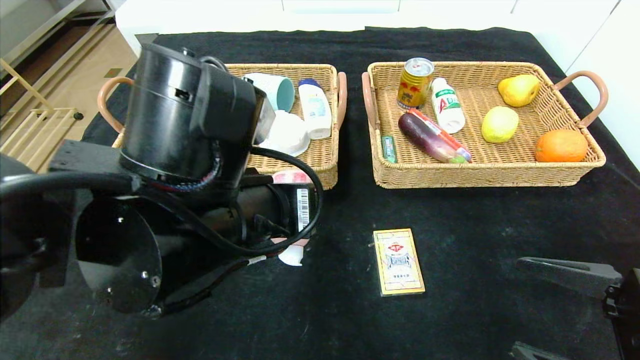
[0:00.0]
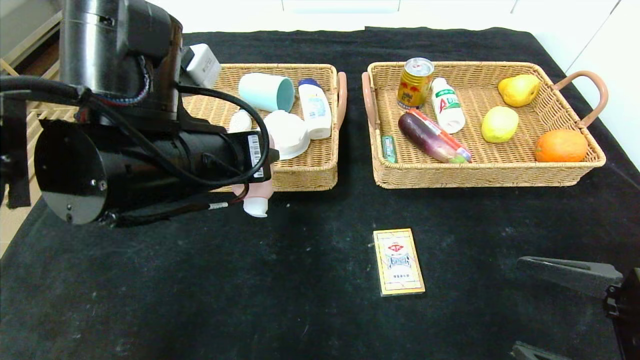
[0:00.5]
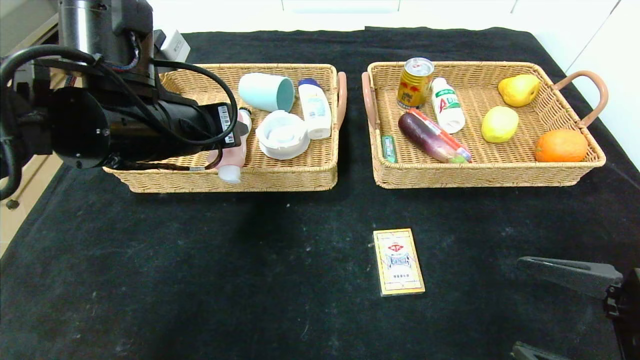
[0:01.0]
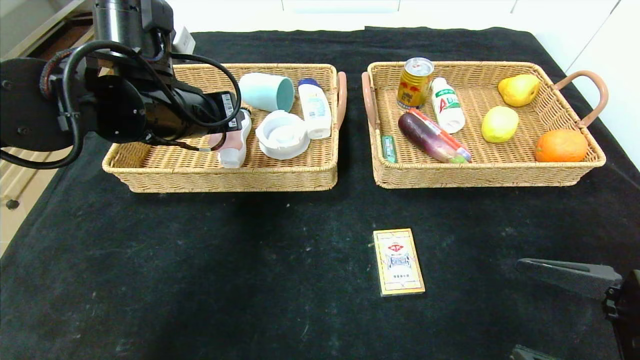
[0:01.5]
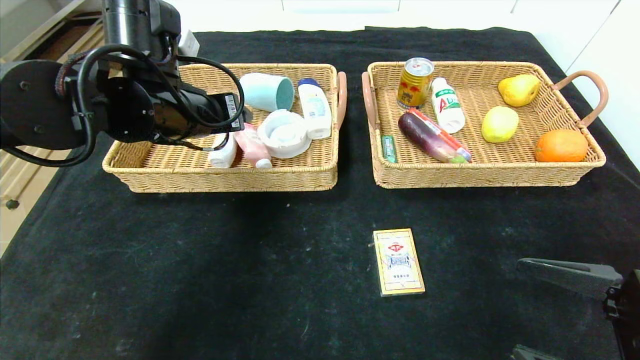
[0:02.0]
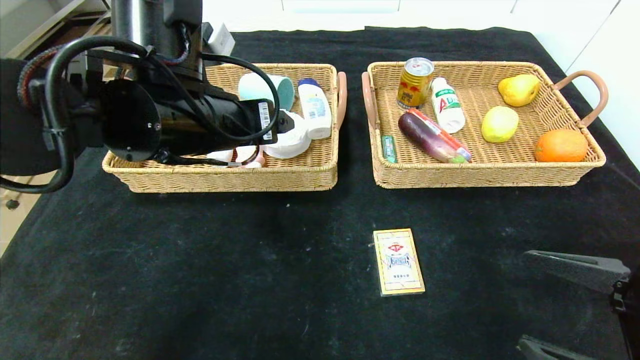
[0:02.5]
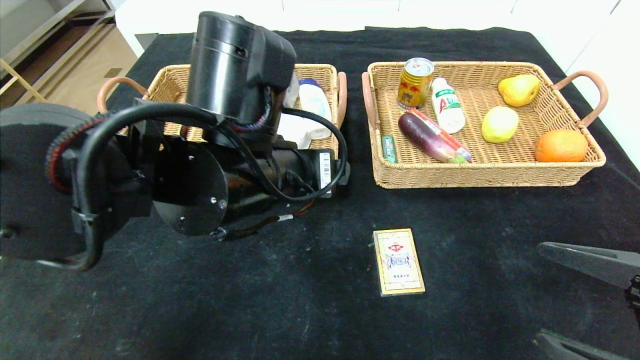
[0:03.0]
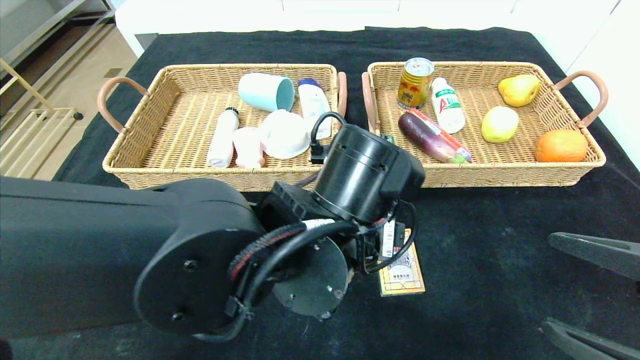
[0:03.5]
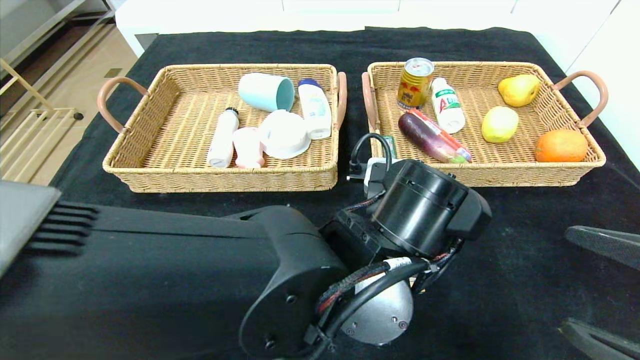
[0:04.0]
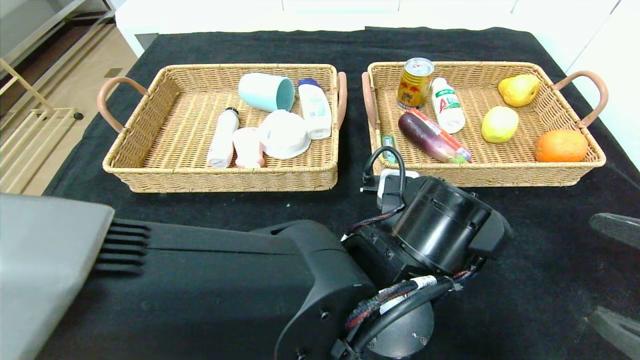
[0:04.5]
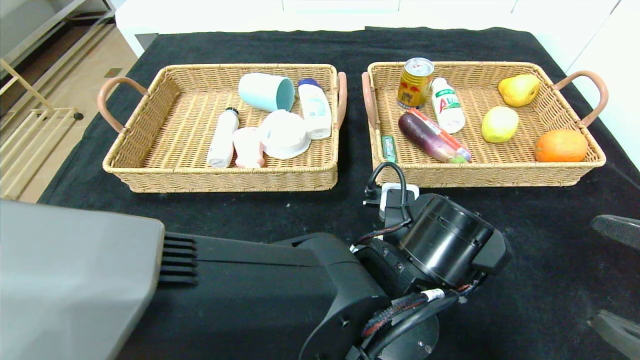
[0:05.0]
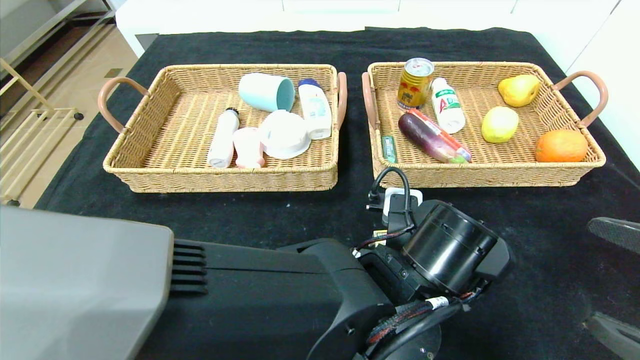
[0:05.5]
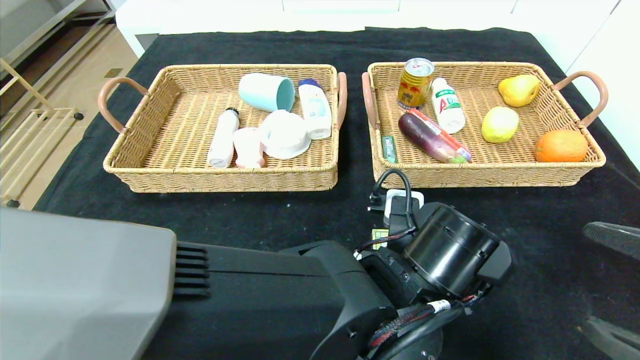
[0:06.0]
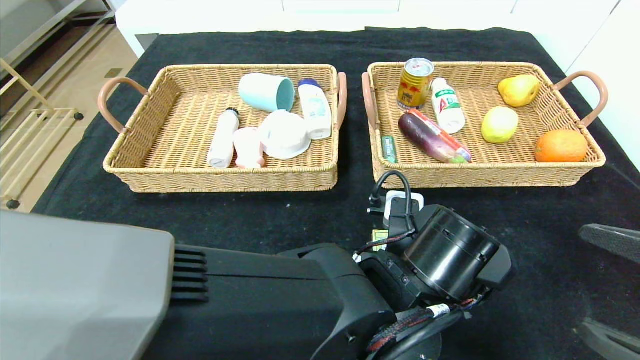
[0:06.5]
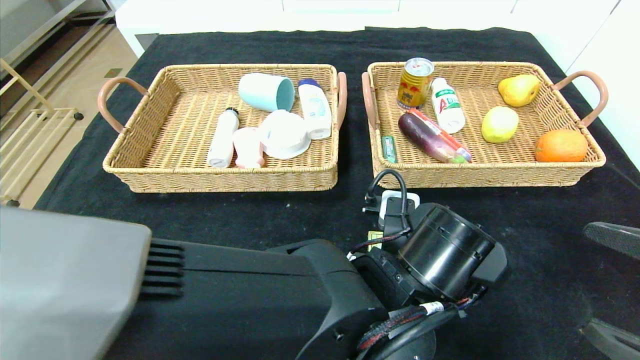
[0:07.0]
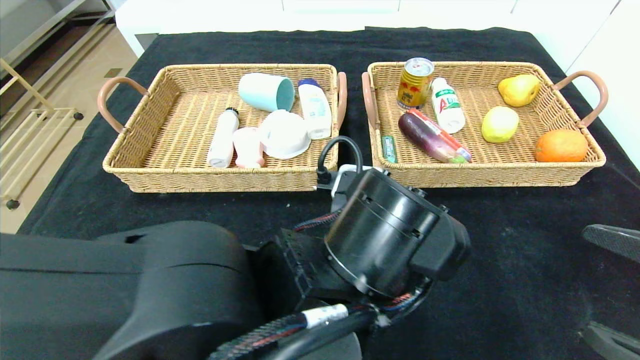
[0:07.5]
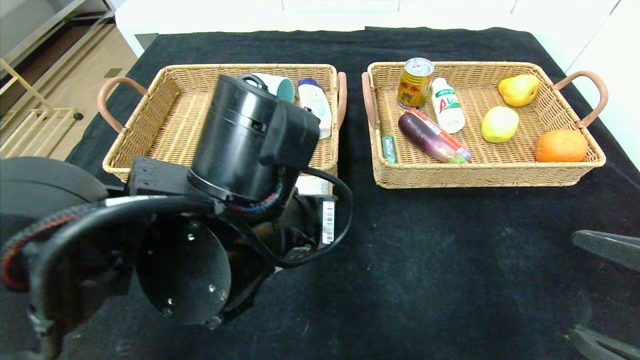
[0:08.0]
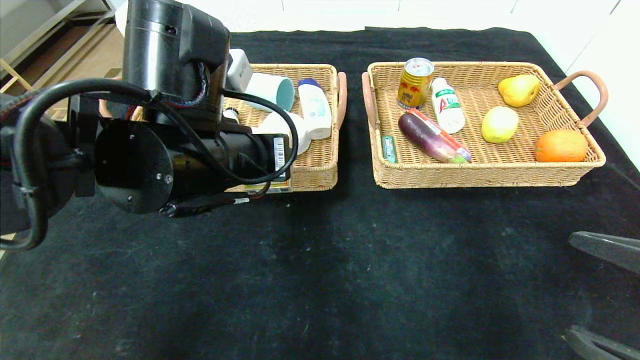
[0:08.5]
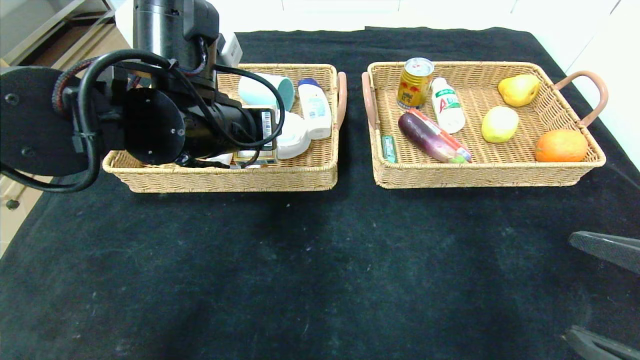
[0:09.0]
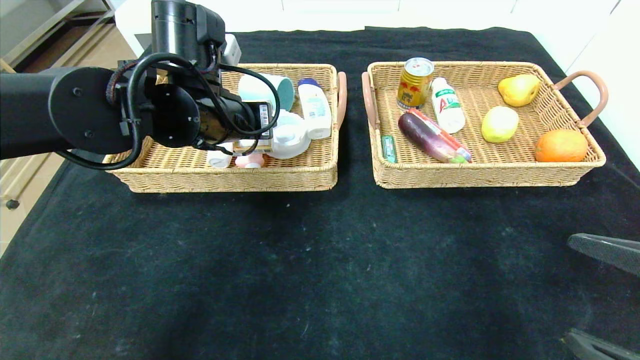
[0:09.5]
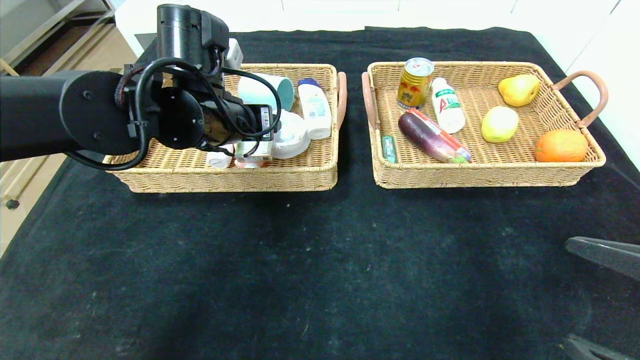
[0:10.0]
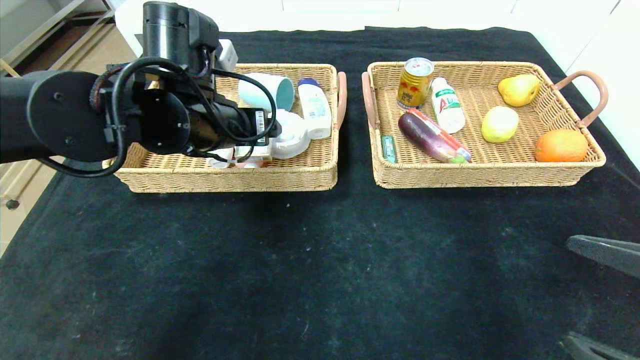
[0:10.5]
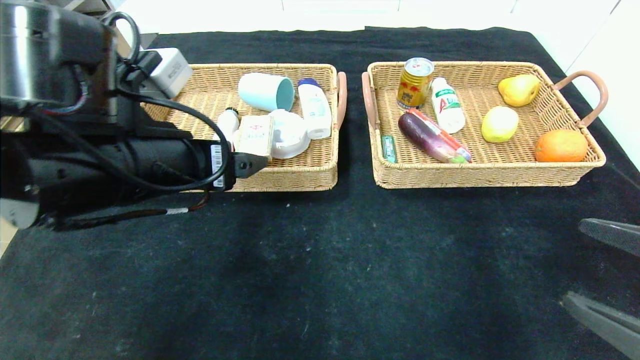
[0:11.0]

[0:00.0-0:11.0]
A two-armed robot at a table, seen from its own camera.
Step, 0:02.0 to 0:10.0: Grasp the playing cards and put it in the left basket.
0:00.0 to 0:02.0: The left gripper heads forward and to the left, covering about 15 cm.
0:02.0 to 0:03.5: The left gripper goes about 25 cm to the right, backward and downward.
0:03.5 to 0:05.5: The left gripper moves to the right and downward, about 10 cm.
0:05.5 to 0:07.5: The left gripper travels to the left by some 5 cm, and closes up.
0:07.5 to 0:09.0: The left gripper goes roughly 20 cm to the left, forward and upward.
0:09.0 to 0:11.0: The left gripper travels backward by roughly 10 cm, and opens up.

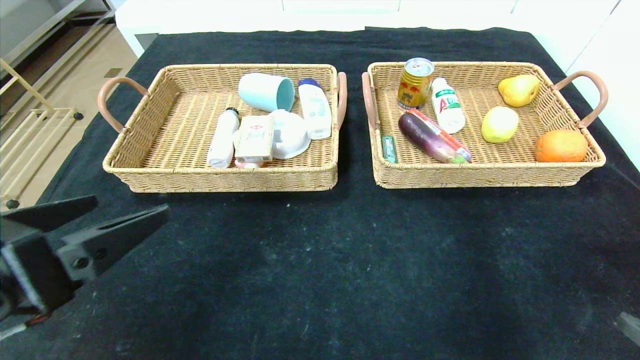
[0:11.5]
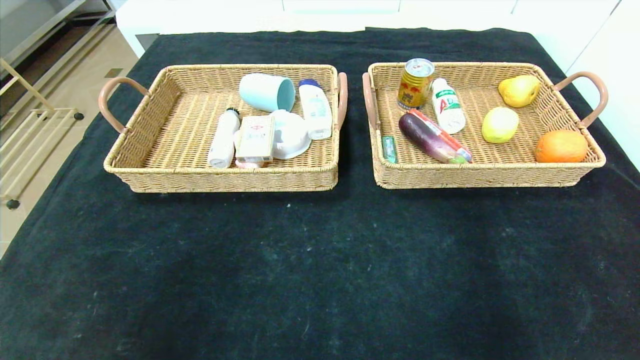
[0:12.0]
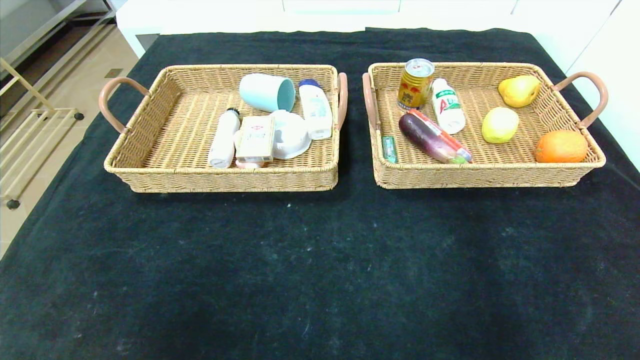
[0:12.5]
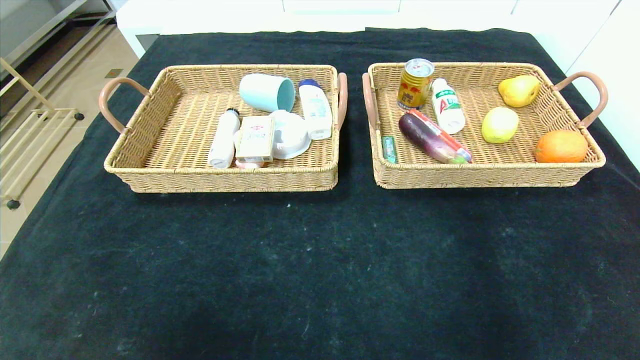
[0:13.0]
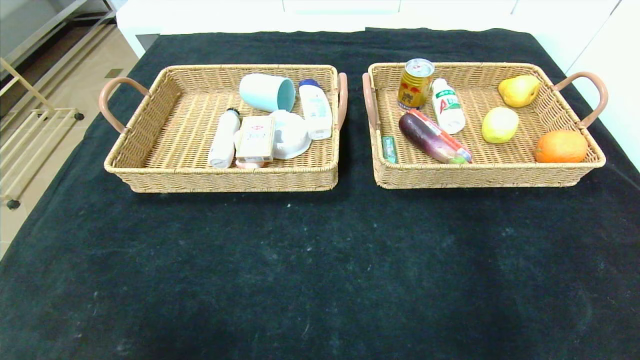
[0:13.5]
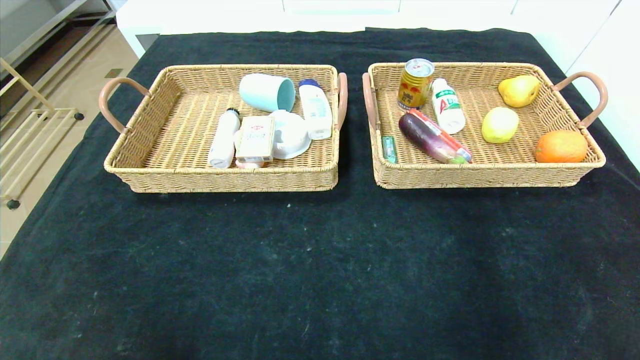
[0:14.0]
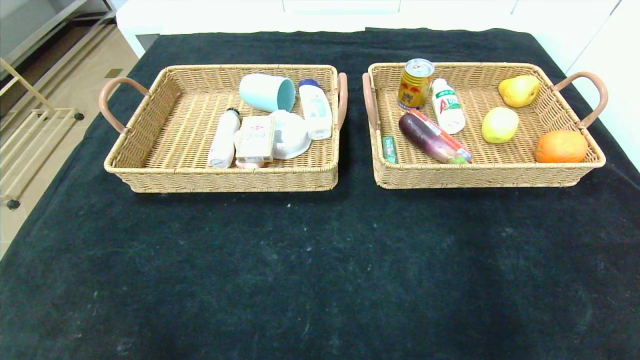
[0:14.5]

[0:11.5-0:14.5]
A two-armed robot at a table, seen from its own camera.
0:11.5 to 0:13.0: The left gripper heads backward, covering about 20 cm. The right gripper heads backward and downward, covering approximately 15 cm.

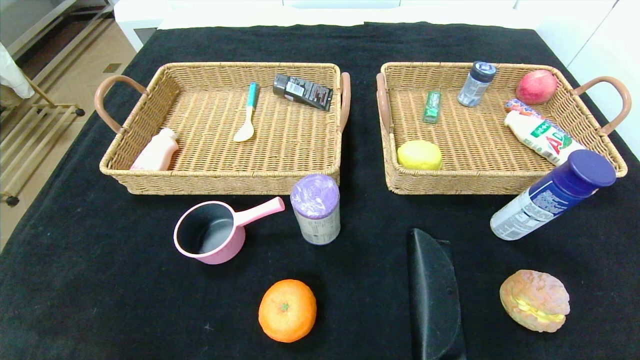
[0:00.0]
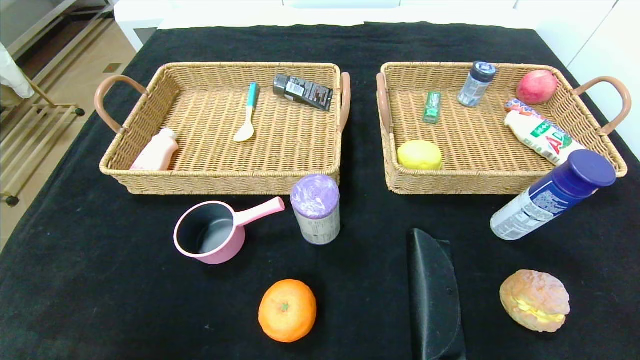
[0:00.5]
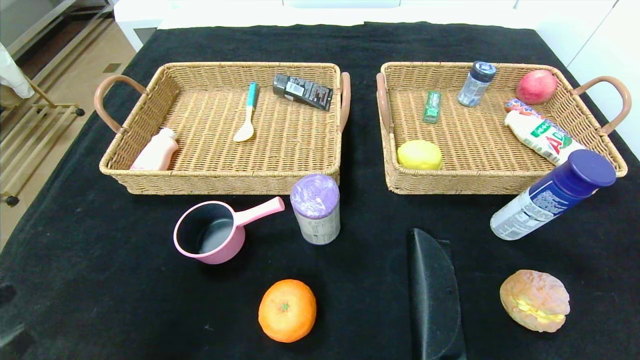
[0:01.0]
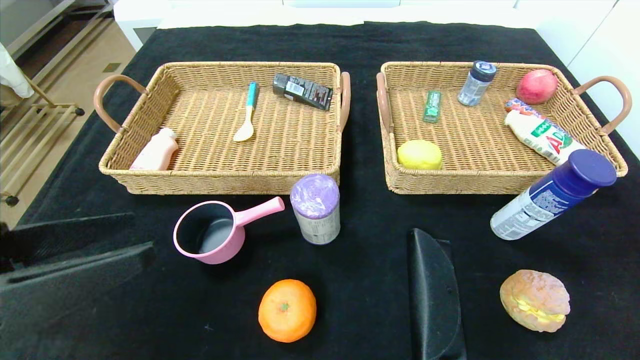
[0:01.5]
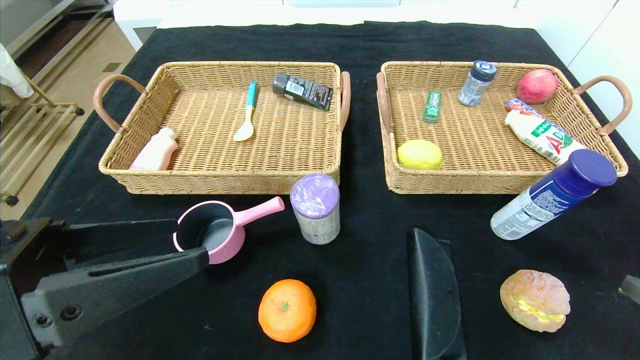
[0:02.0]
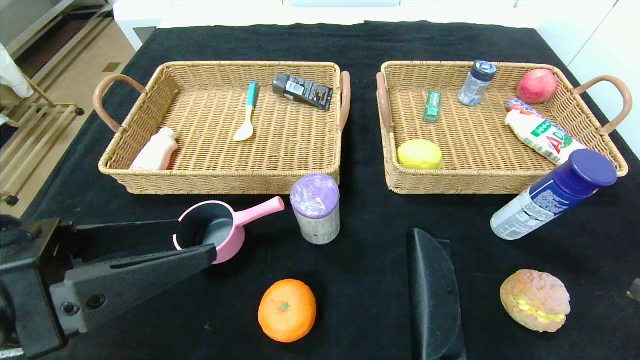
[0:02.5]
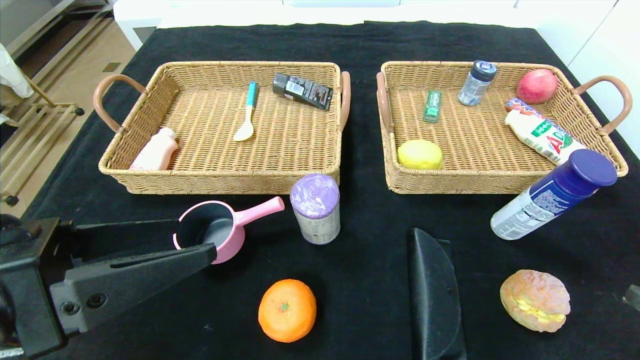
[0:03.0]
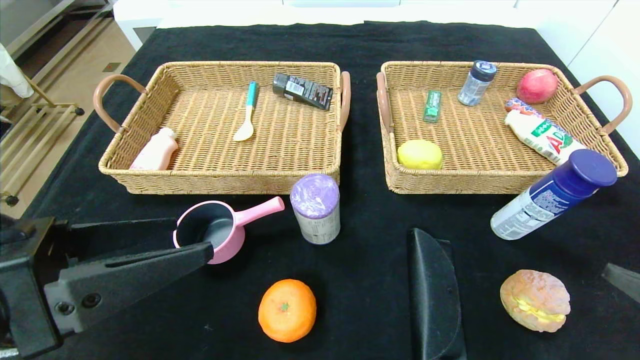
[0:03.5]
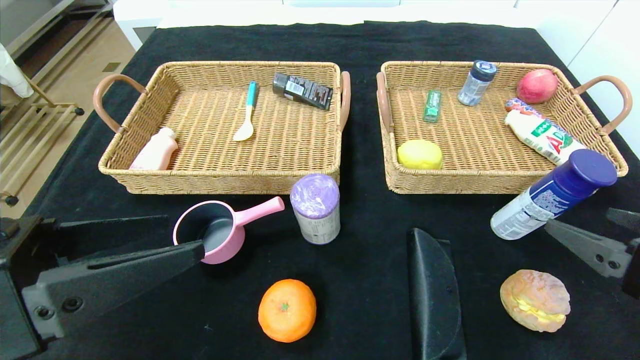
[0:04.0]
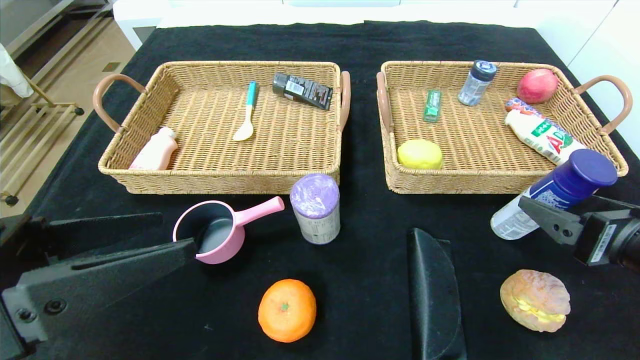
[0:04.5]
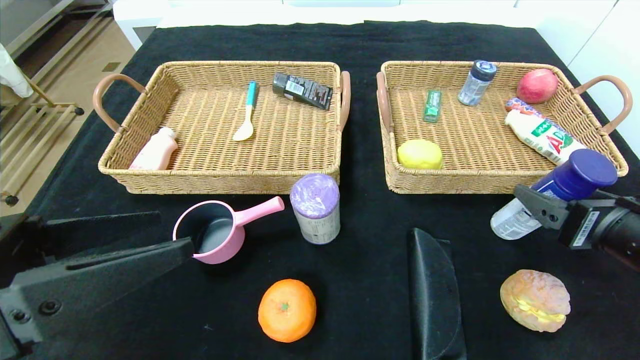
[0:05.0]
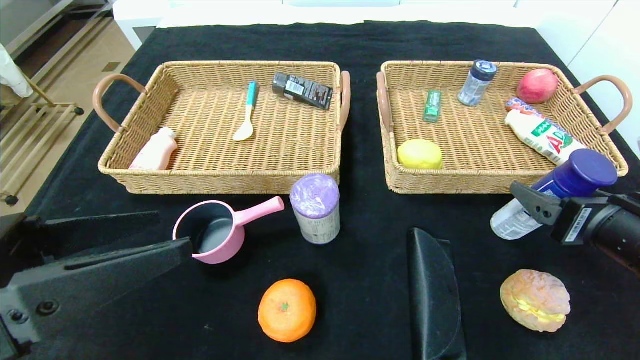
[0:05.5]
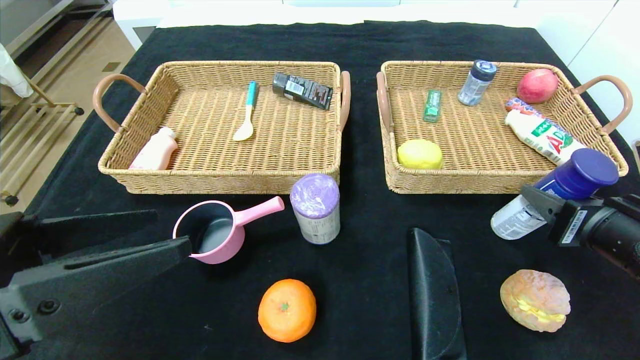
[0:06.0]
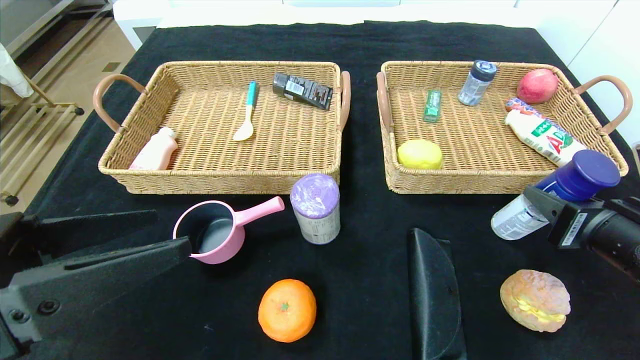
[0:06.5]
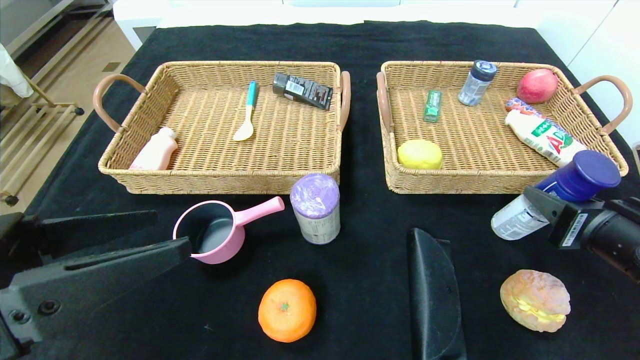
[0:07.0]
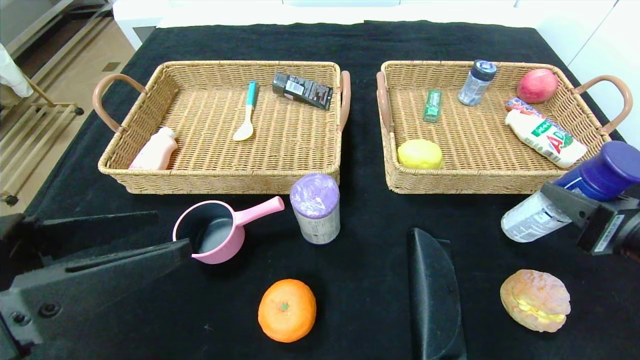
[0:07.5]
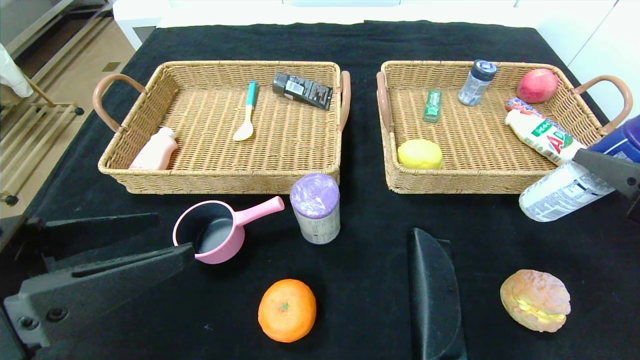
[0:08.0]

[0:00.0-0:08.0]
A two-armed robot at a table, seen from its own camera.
0:00.0 to 0:02.0: Both grippers move upward and forward, roughly 20 cm.
0:02.0 to 0:04.0: The right gripper goes roughly 5 cm forward.
0:04.0 to 0:06.0: The right gripper heads forward, covering about 5 cm, and closes.
0:06.0 to 0:08.0: The right gripper travels upward by about 5 cm.
